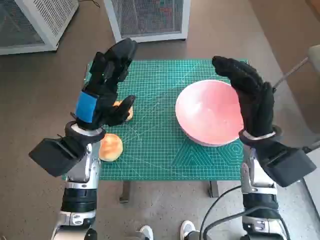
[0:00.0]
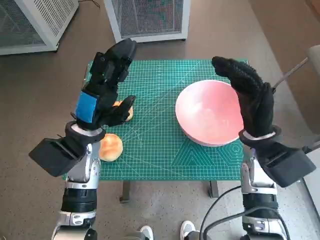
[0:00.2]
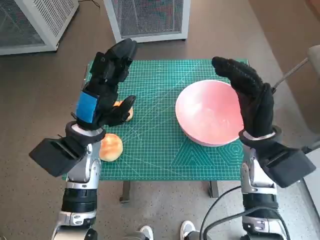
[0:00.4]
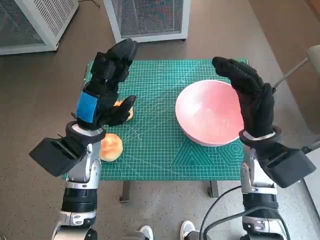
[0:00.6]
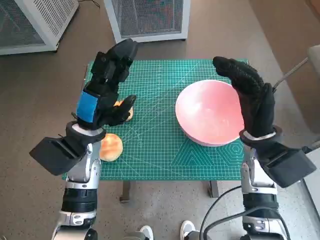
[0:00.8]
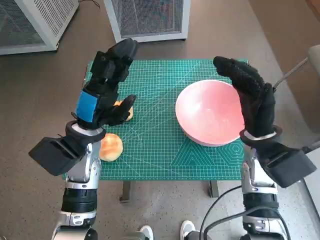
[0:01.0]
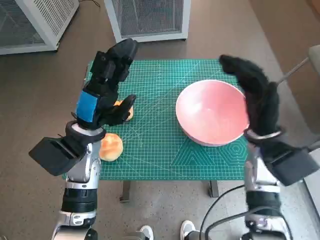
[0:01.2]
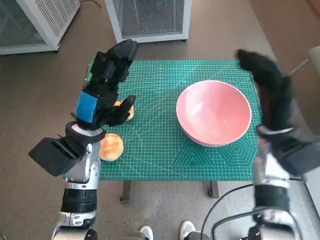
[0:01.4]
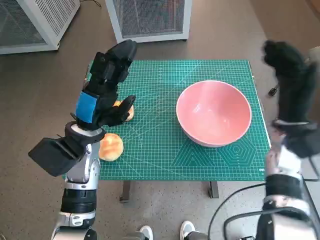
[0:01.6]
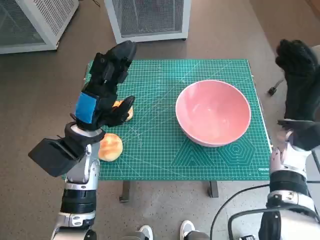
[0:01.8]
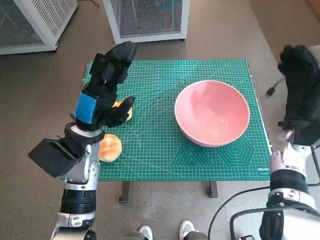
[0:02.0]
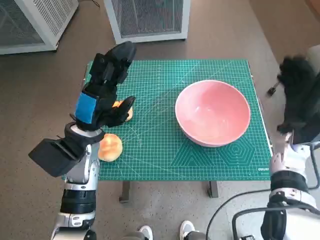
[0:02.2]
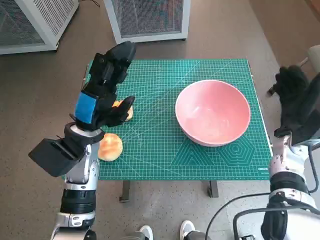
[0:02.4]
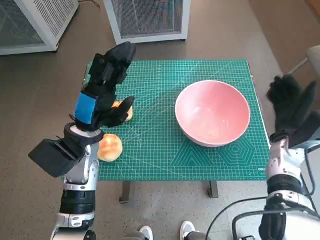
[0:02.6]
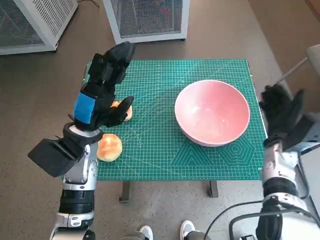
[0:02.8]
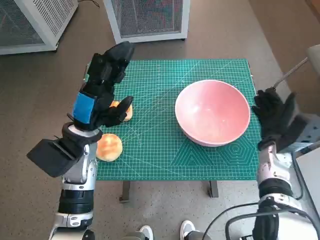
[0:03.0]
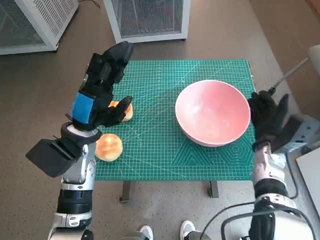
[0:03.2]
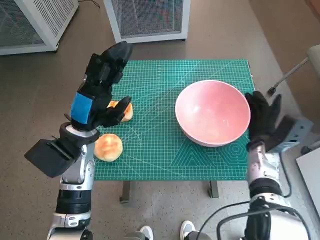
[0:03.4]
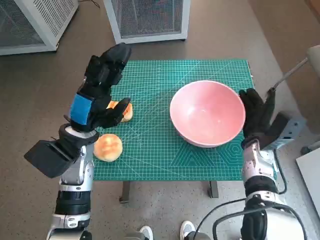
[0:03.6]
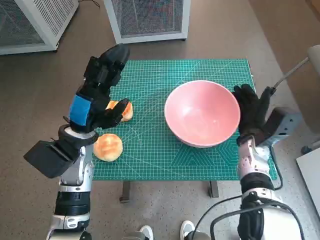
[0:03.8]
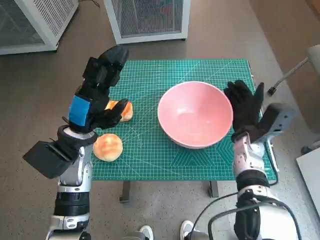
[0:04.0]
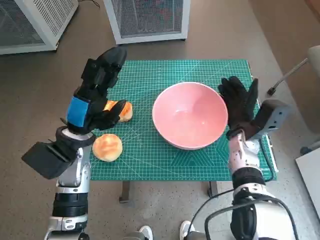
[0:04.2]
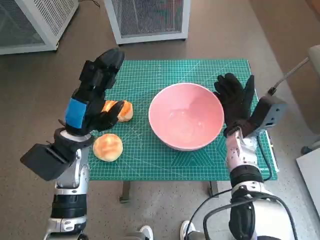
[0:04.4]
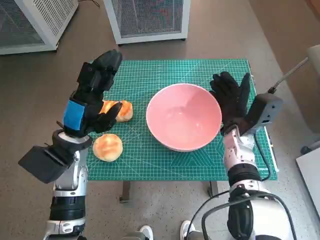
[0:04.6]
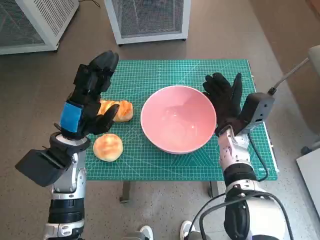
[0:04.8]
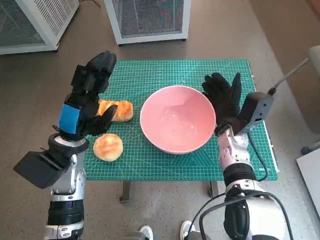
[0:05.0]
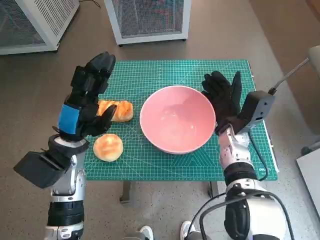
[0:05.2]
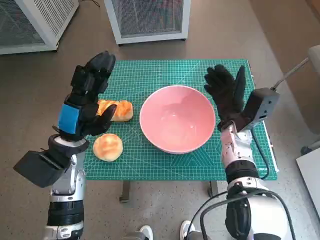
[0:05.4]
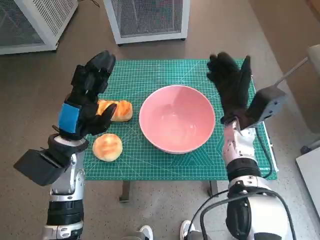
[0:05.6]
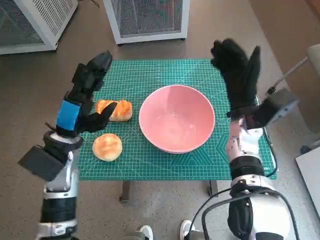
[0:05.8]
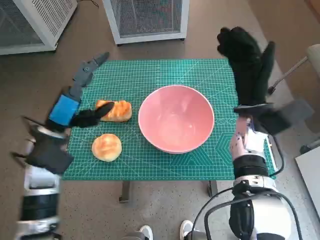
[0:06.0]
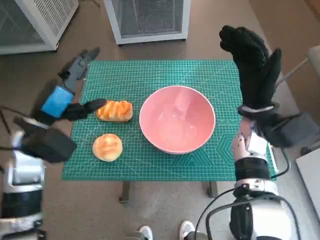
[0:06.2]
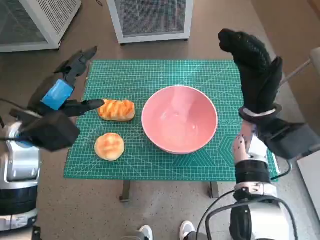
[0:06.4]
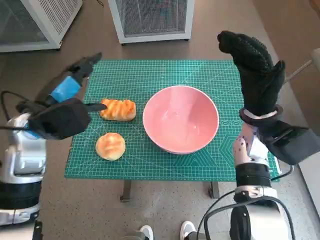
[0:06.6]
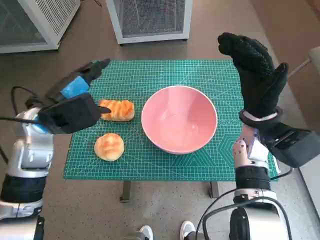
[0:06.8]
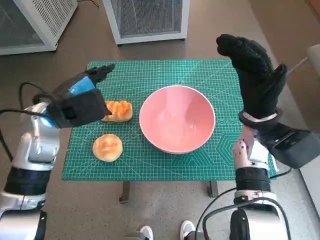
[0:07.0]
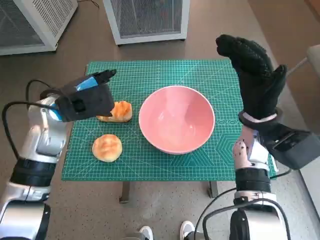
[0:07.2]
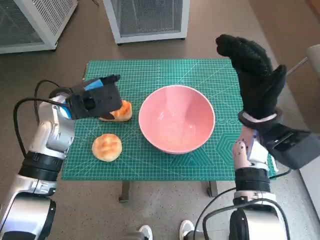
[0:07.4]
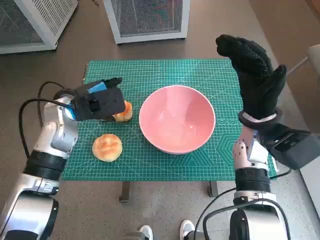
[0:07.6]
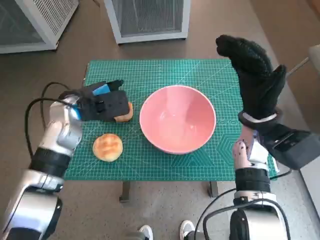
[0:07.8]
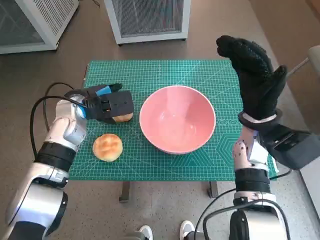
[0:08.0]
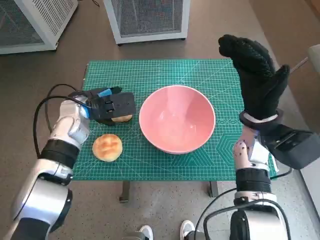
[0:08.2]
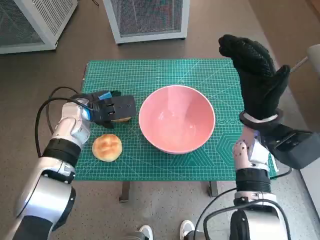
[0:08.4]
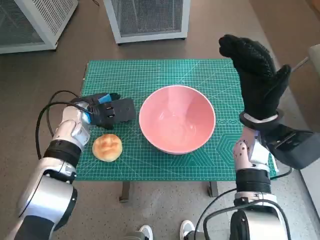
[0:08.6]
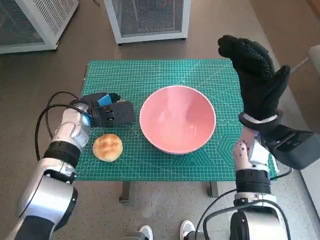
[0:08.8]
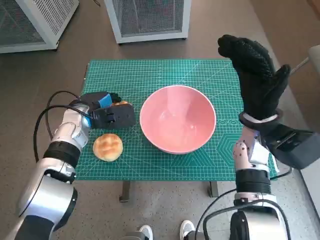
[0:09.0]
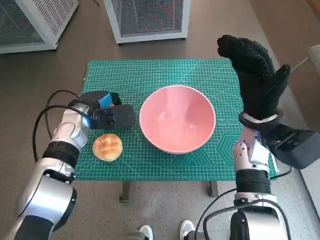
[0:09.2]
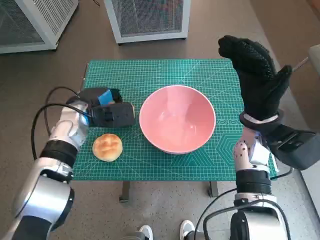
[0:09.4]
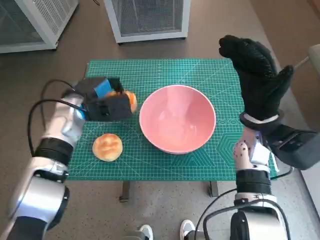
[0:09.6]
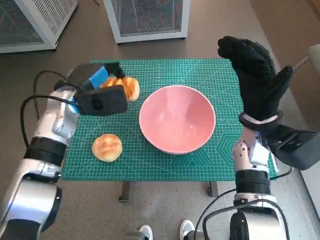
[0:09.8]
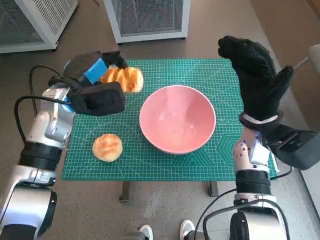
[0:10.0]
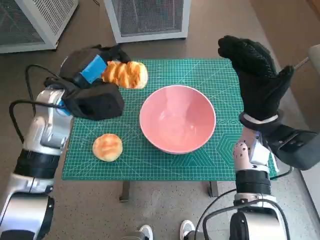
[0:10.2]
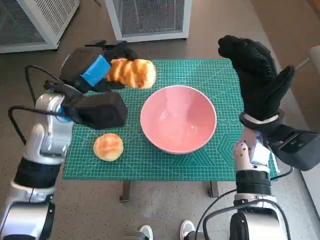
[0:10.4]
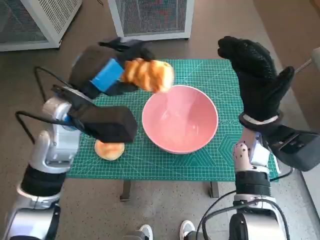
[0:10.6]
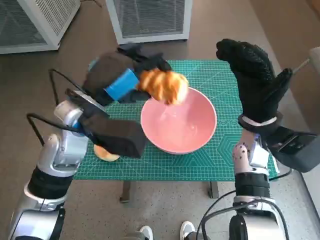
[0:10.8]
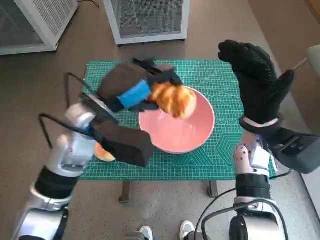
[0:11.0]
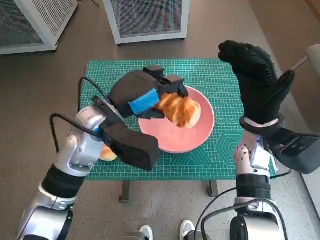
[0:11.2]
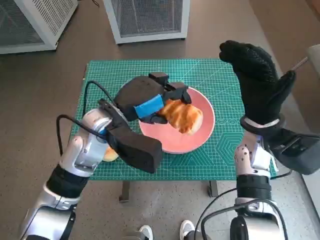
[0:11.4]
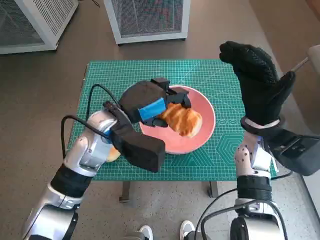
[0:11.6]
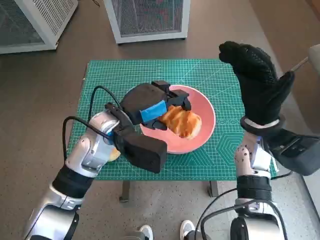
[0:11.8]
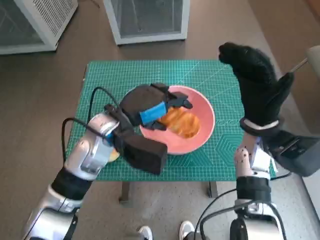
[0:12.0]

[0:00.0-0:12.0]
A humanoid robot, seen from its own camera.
Task of the whole recording: Push the bowl into the center of the table and put the bread into the bowl.
Step, 0:00.0 to 0:05.4: Move the pink bowl to the center of table with right hand.
Step, 0:05.6 to 0:09.0: Grasp the long bread with left hand.
0:01.6 to 0:03.0: The right hand heads downward, covering roughly 10 cm.
0:03.0 to 0:04.4: The right hand goes about 10 cm to the left.
0:04.4 to 0:06.0: The right hand is displaced upward by approximately 5 cm.
0:06.0 to 0:07.6: The left hand travels forward by about 5 cm.
0:07.6 to 0:09.0: The left hand heads downward, covering some 5 cm.
0:09.0 to 0:10.4: The left hand moves upward, about 10 cm.
0:10.4 to 0:12.0: The left hand travels to the right by some 10 cm.

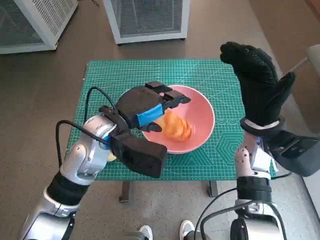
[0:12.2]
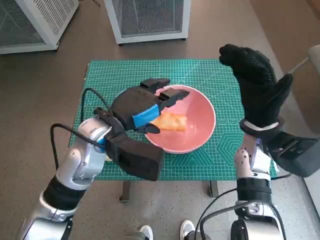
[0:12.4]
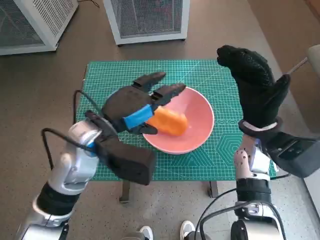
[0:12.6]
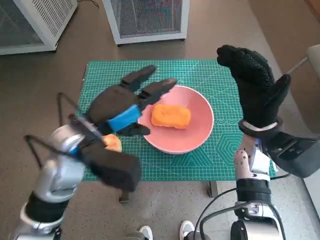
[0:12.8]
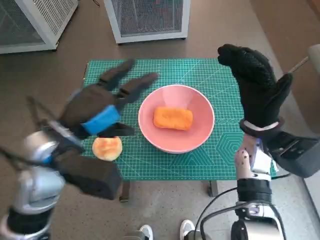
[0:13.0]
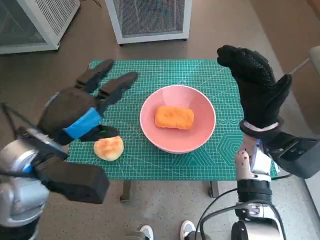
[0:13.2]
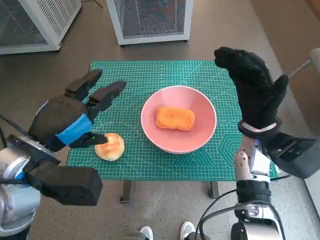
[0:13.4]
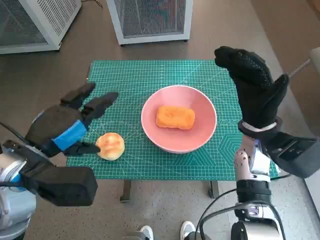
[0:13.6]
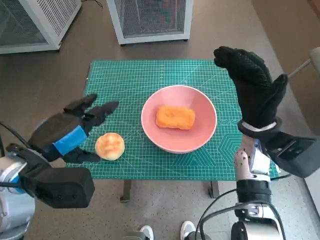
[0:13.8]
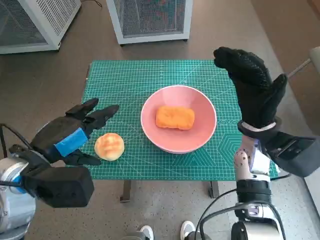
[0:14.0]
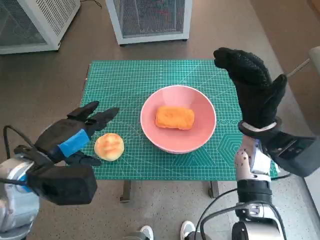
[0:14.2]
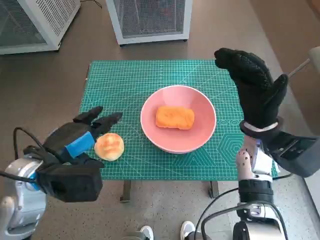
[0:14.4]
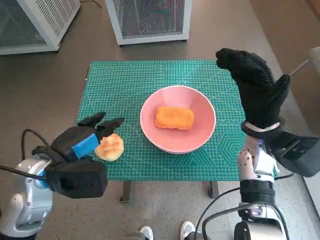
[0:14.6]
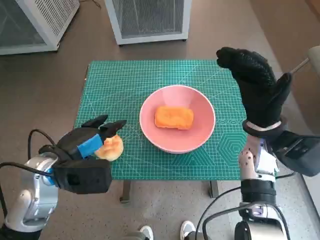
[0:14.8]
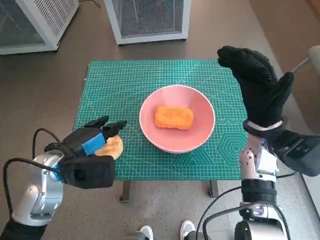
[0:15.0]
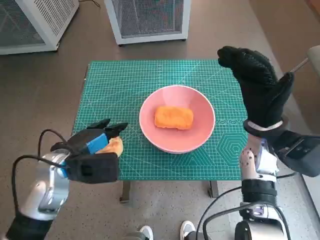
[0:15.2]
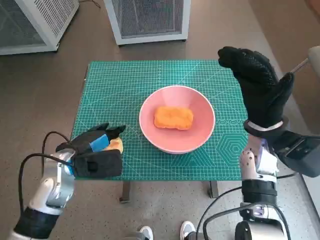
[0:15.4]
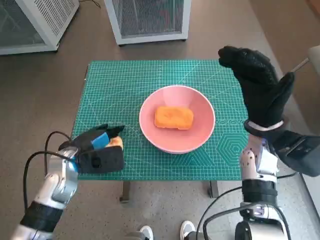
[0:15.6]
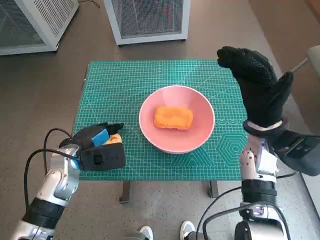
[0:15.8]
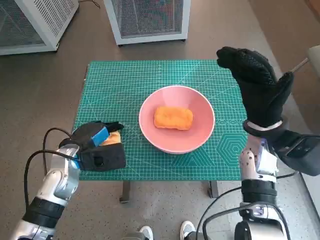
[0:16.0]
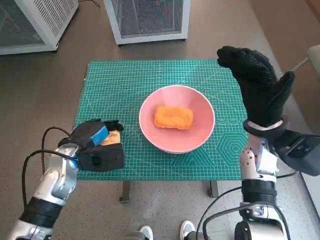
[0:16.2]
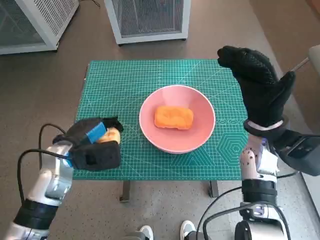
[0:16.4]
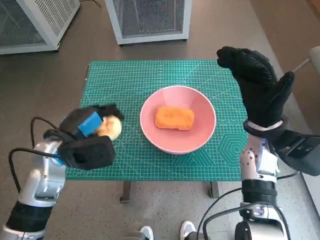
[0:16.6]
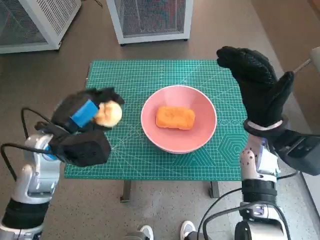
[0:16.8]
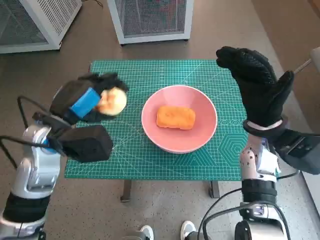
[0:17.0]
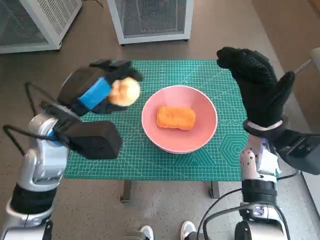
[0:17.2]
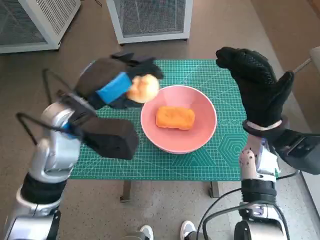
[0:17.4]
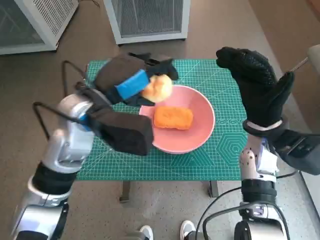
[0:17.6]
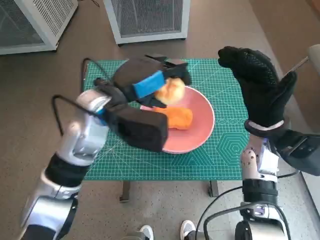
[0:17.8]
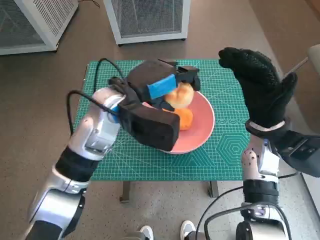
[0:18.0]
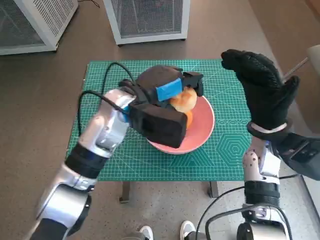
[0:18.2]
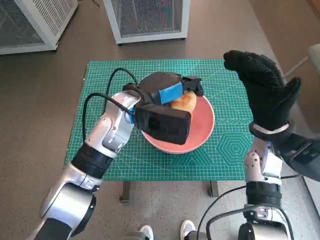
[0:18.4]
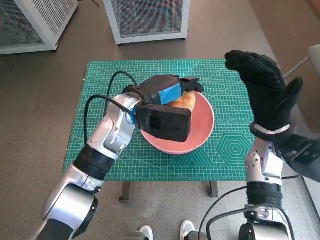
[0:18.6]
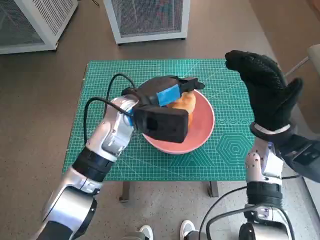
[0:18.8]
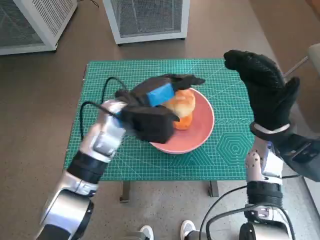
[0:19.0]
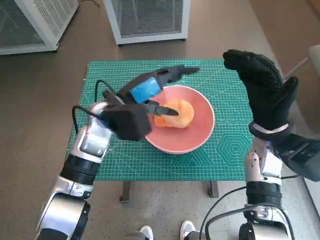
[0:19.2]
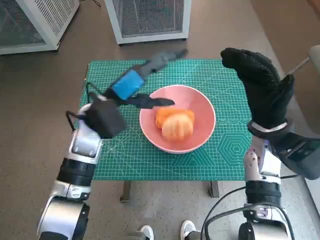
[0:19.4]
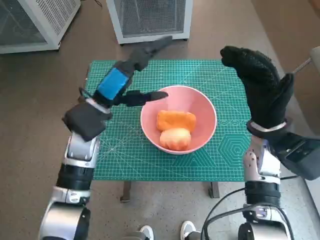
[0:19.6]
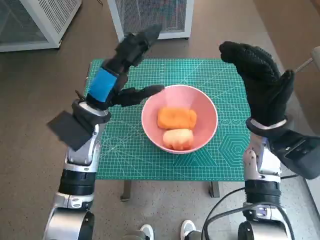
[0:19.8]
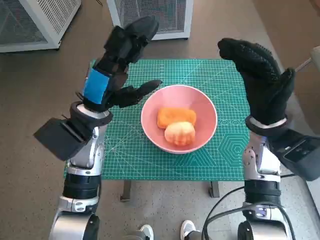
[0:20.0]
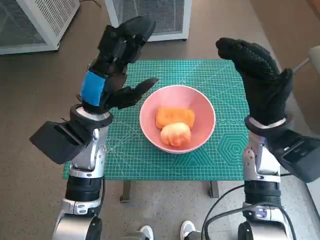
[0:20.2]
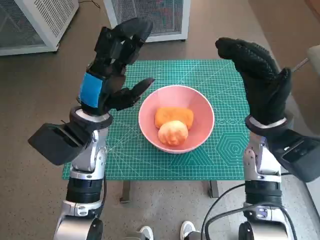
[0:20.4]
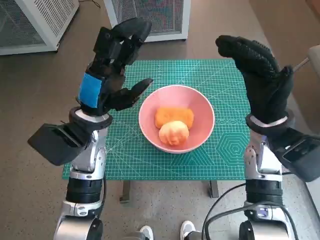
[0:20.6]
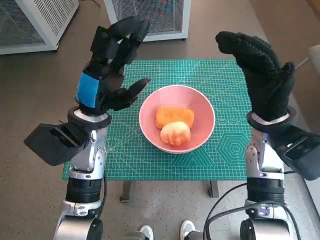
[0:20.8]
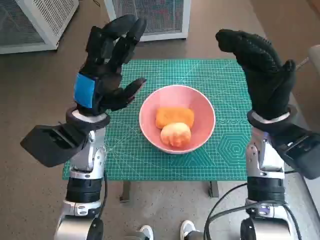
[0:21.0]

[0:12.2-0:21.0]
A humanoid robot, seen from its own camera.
Task of the whole recording: Push the bowl into the center of the table and put the bread into the bowl.
Step, 0:12.4 to 0:15.4: Grasp the round bread with left hand.
Step, 0:15.6 to 0:19.0: Place the round bread in pink bowl with left hand.
0:12.2 to 0:13.6: The left hand heads to the left and backward, covering roughly 15 cm.
0:13.6 to 0:15.2: The left hand travels downward by roughly 10 cm.
0:15.2 to 0:16.6: The hands stay close to where they were, moving slightly.
0:16.6 to 0:18.0: The left hand goes about 15 cm to the right and upward.
0:18.0 to 0:19.6: The left hand heads to the left, covering about 5 cm.

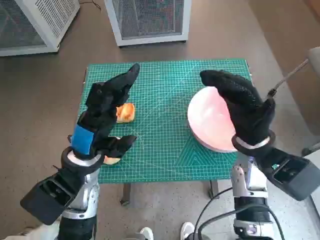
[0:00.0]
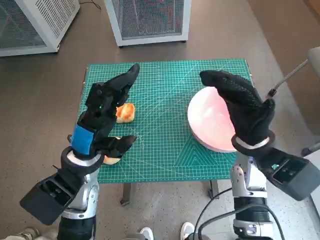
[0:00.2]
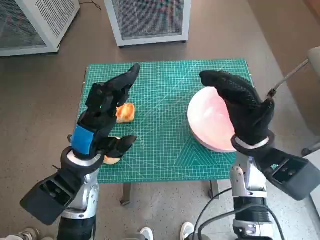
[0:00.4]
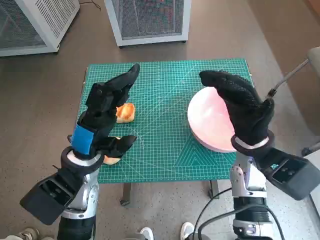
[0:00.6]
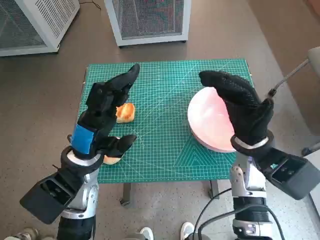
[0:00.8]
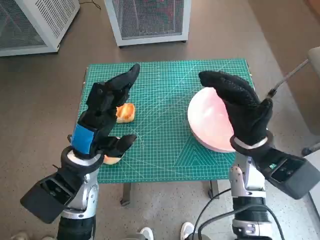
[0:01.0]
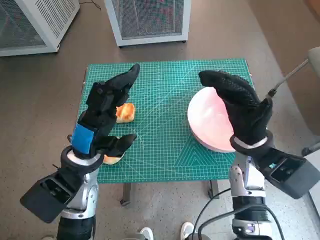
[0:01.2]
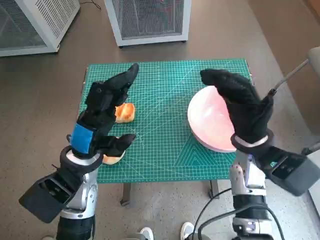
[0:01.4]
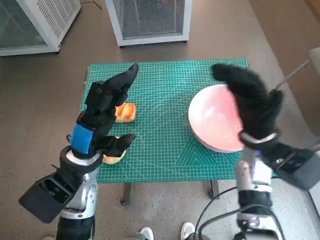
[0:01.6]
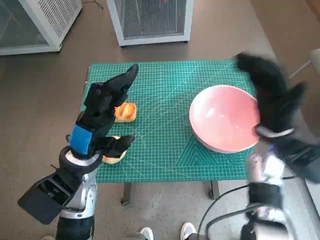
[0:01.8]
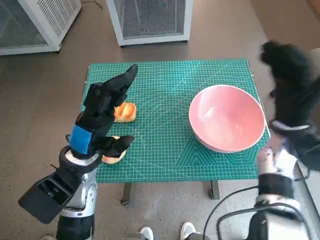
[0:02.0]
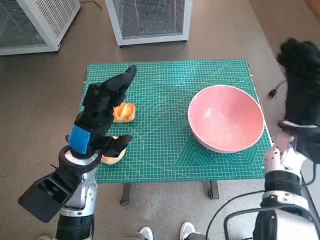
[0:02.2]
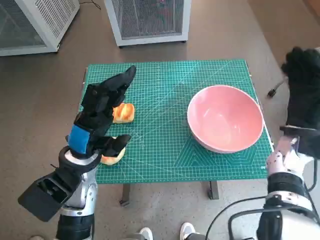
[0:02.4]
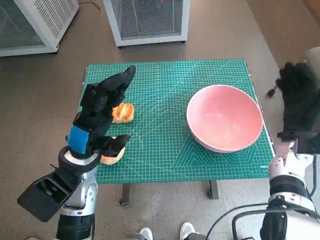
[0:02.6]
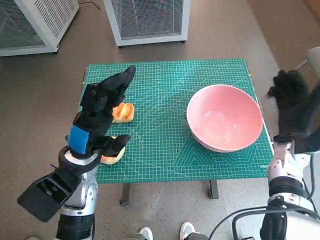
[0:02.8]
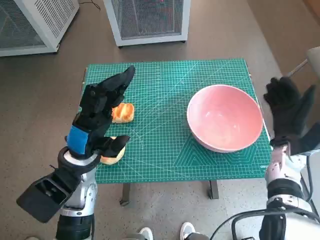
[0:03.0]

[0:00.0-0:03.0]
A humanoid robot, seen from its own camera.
Task of the whole recording: Push the bowl into the center of the table and put the bread into the bowl.
0:01.6 to 0:03.0: The right hand travels to the right and downward by approximately 10 cm.
